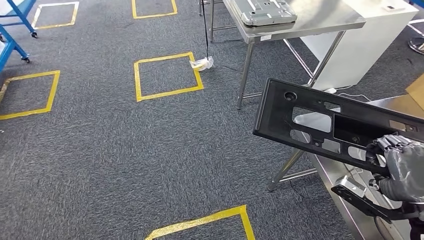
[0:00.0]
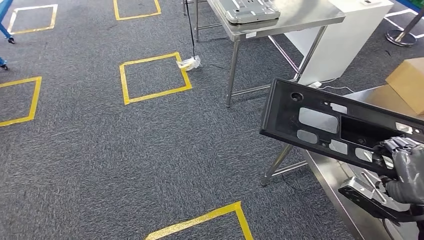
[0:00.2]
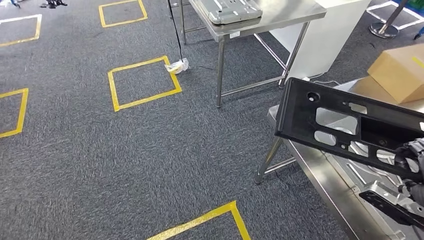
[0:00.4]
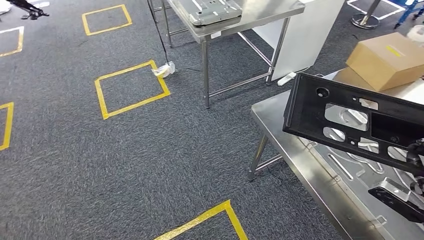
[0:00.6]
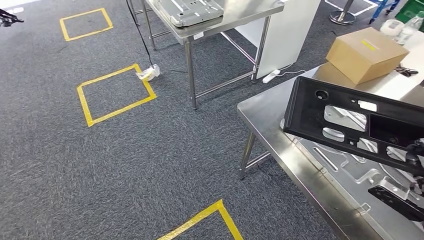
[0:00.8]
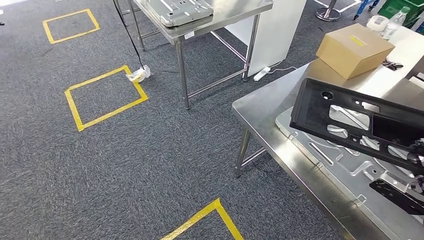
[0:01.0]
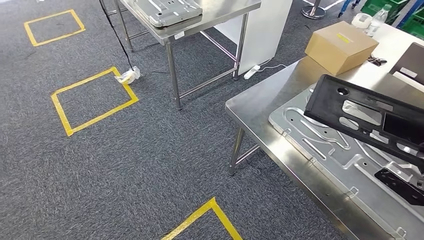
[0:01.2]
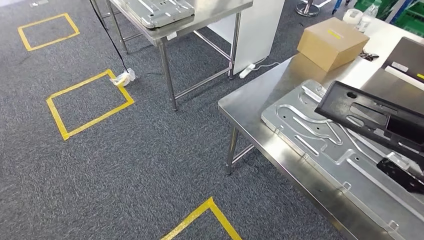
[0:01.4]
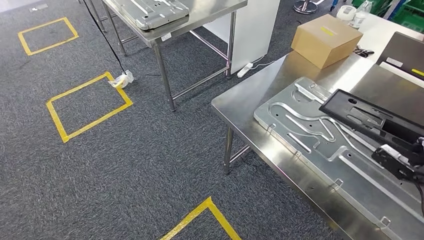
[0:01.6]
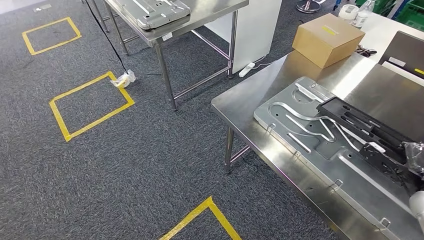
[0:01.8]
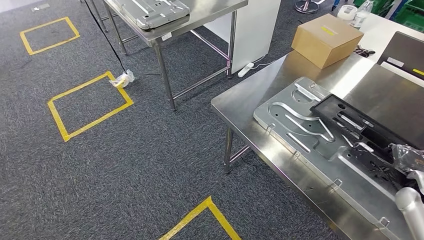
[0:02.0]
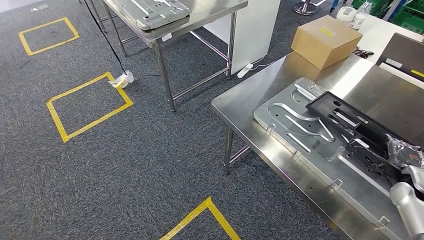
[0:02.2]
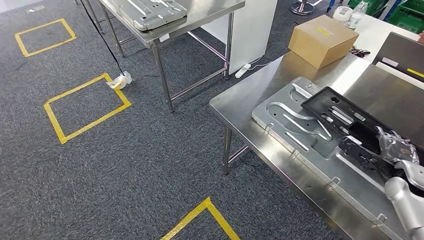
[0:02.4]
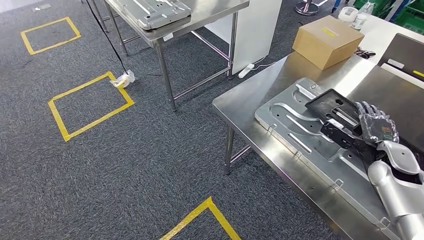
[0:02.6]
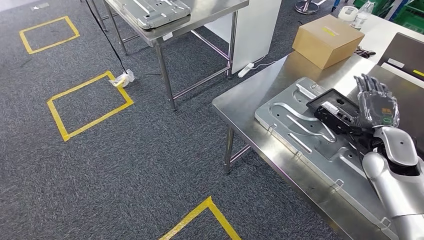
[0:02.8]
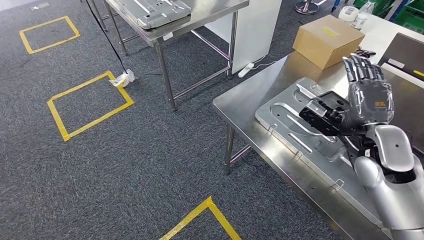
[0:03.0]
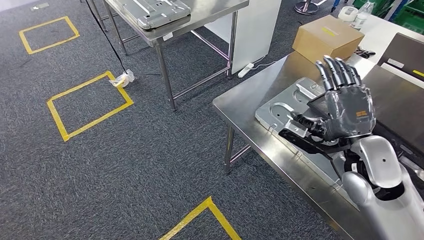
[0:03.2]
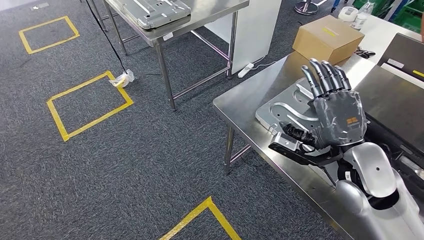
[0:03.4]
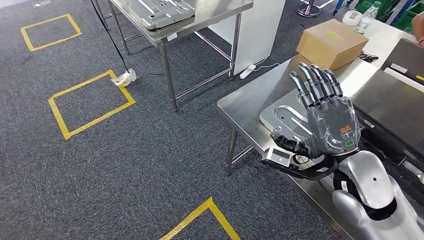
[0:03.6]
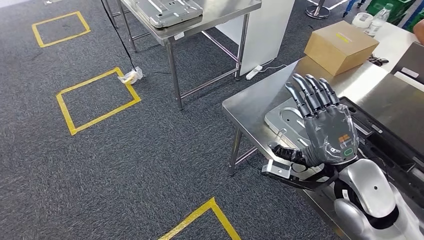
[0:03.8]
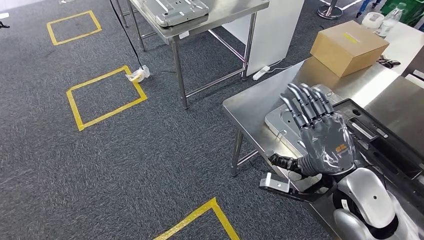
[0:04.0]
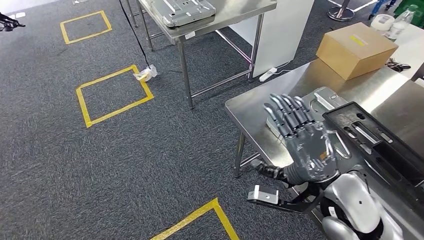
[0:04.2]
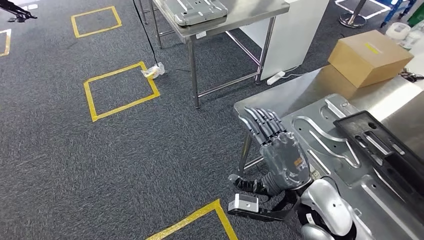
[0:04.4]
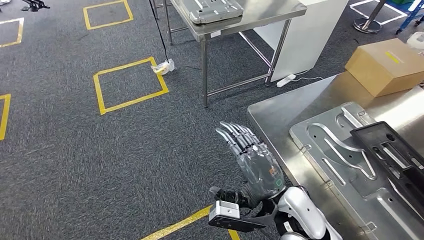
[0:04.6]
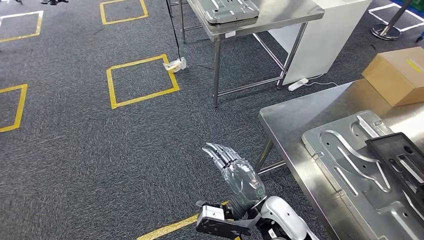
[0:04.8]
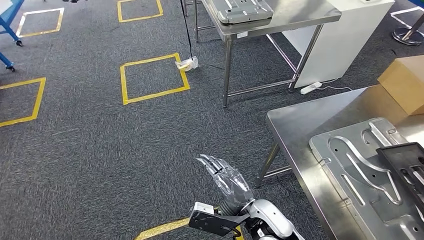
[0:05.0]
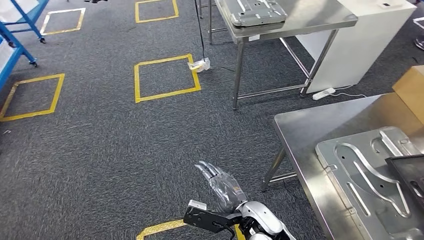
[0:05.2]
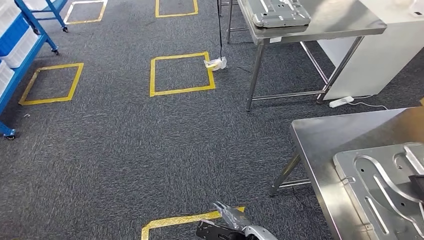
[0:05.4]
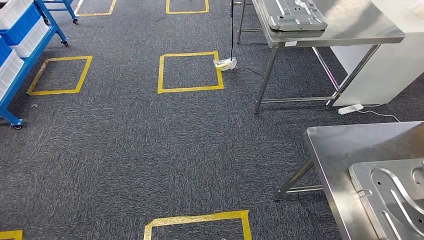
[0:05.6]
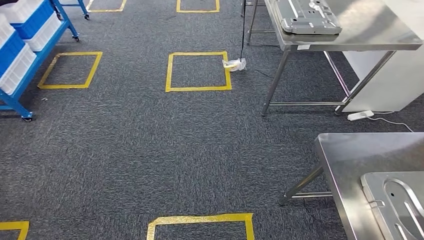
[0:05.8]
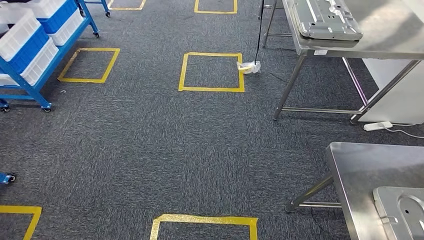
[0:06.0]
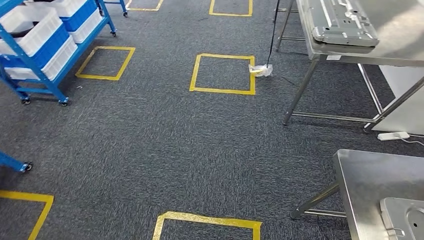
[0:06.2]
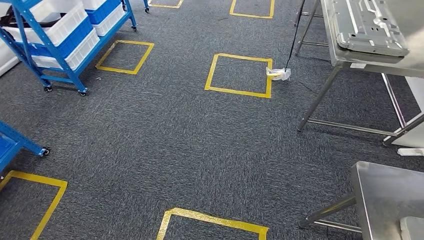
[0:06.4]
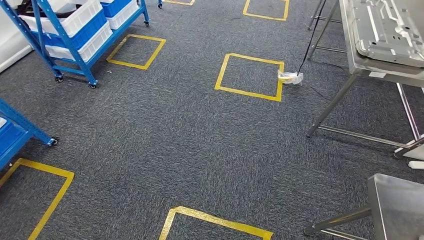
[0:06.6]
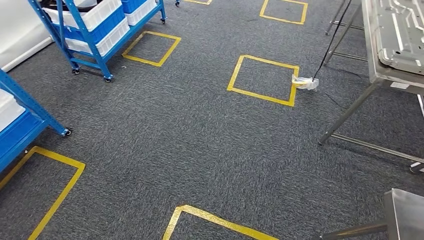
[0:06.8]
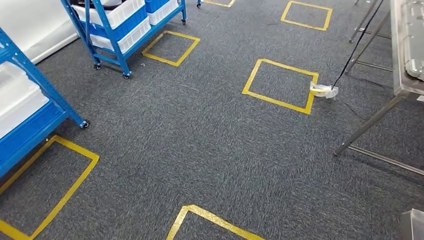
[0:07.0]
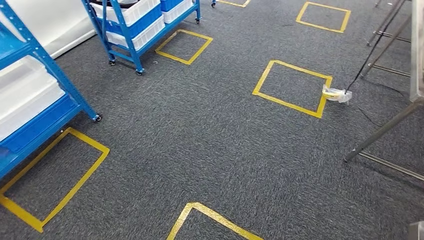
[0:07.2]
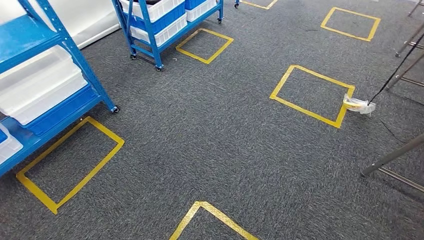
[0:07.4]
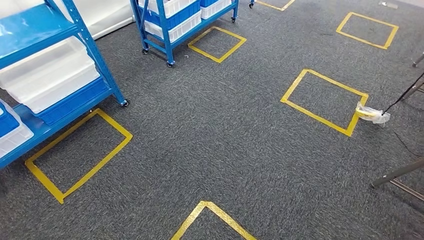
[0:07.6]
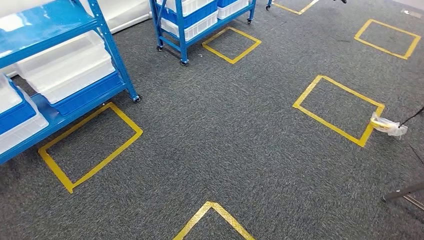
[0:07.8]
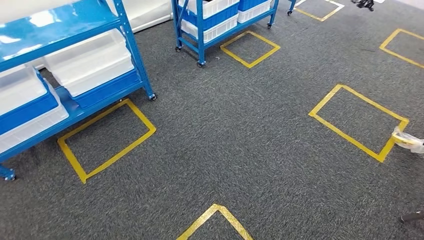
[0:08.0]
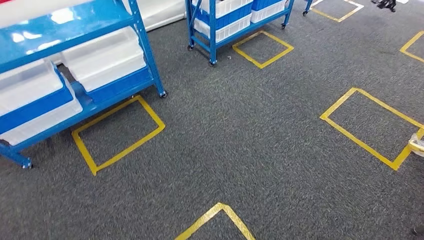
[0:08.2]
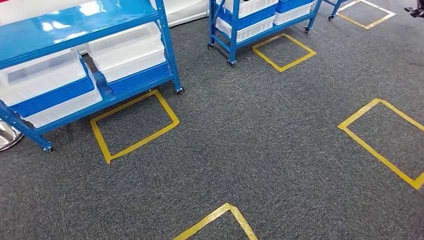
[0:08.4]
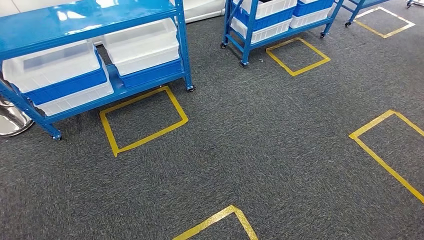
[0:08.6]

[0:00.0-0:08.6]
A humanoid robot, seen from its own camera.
Step, 0:00.2 to 0:05.4: Insert the large material into the corresponding hole on the workbench.
Step, 0:06.8 to 0:08.6: Move to the initial position of the shelf.
